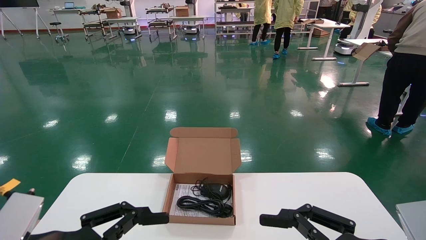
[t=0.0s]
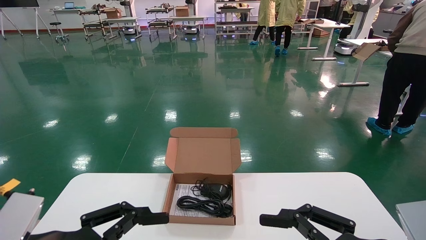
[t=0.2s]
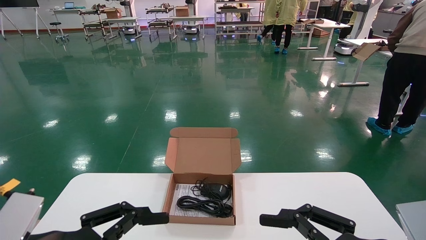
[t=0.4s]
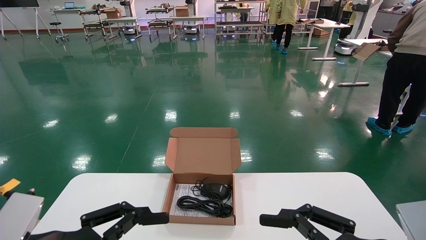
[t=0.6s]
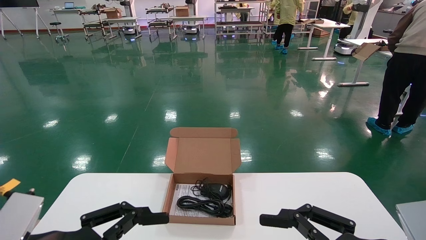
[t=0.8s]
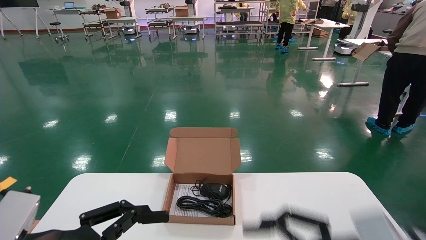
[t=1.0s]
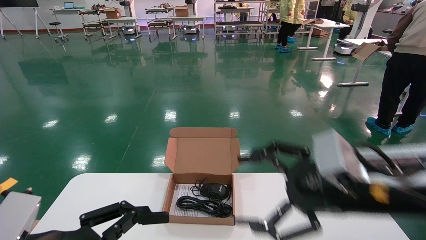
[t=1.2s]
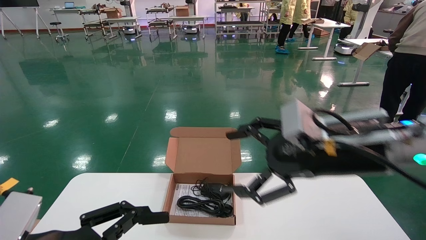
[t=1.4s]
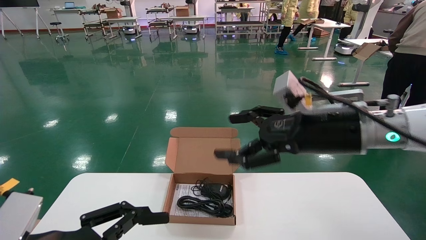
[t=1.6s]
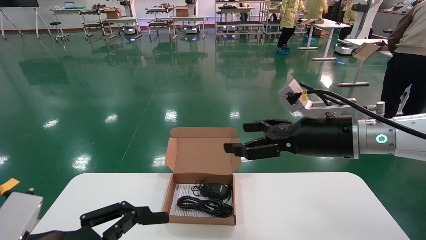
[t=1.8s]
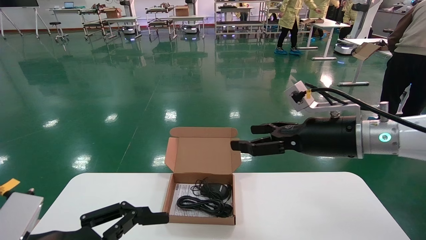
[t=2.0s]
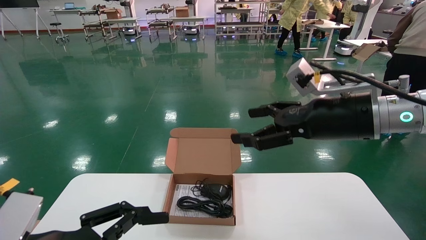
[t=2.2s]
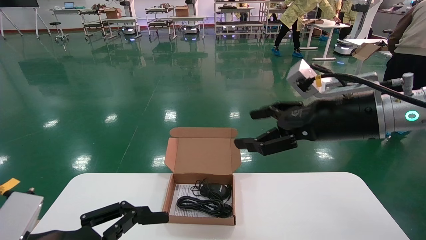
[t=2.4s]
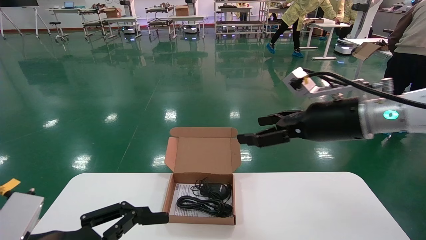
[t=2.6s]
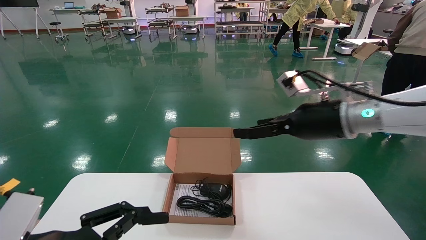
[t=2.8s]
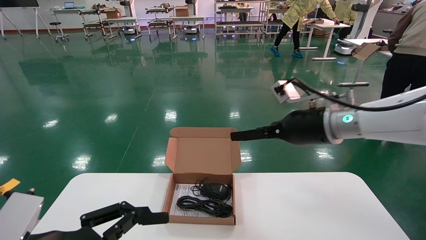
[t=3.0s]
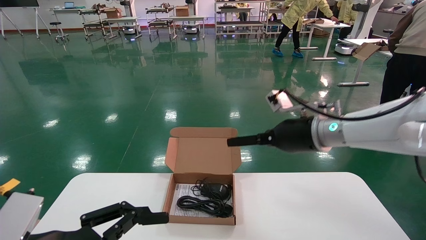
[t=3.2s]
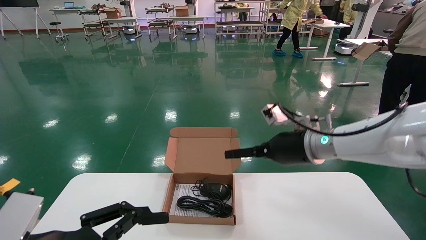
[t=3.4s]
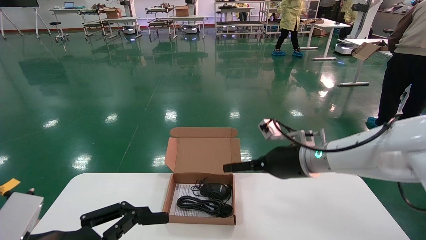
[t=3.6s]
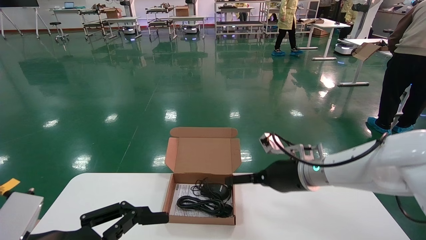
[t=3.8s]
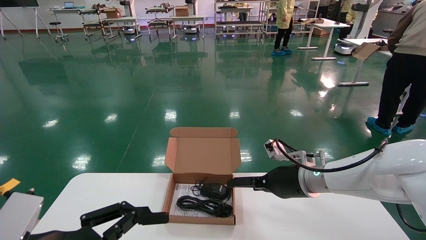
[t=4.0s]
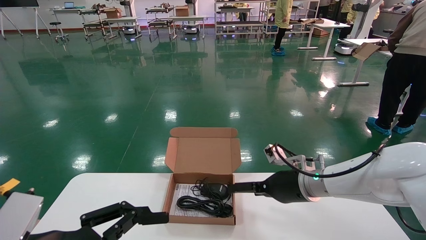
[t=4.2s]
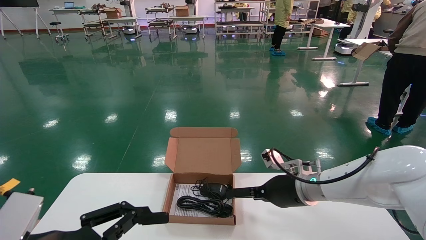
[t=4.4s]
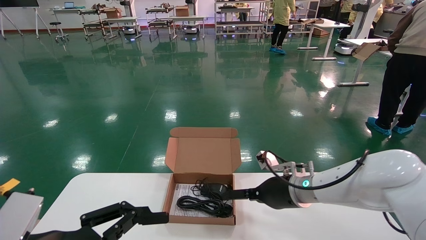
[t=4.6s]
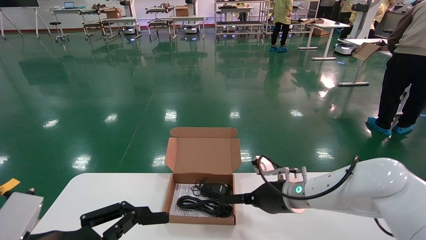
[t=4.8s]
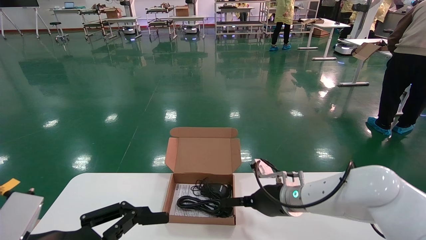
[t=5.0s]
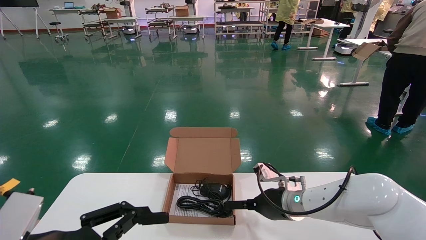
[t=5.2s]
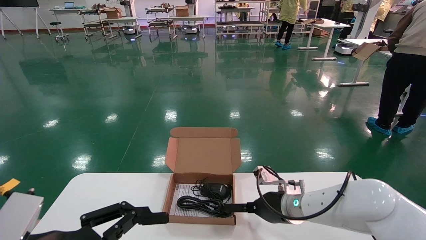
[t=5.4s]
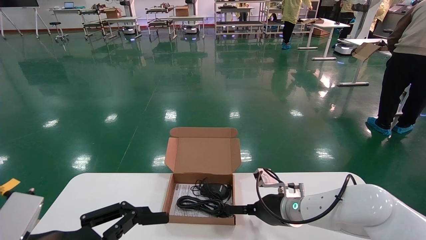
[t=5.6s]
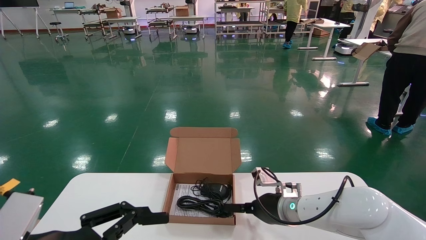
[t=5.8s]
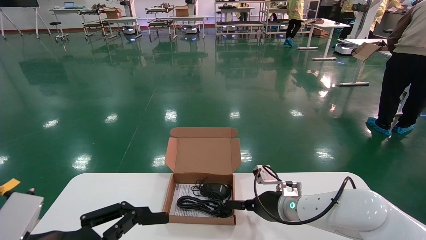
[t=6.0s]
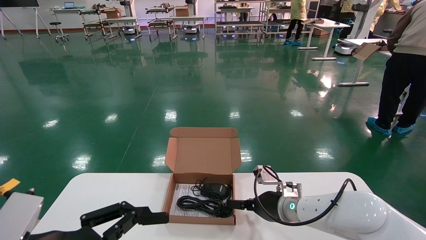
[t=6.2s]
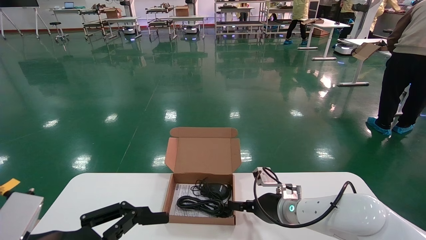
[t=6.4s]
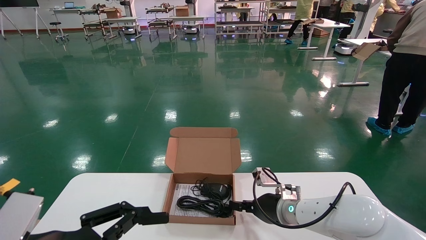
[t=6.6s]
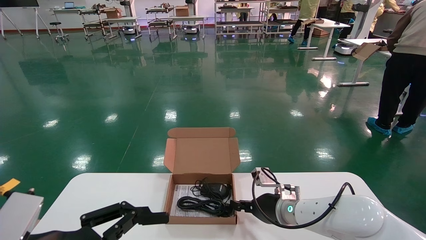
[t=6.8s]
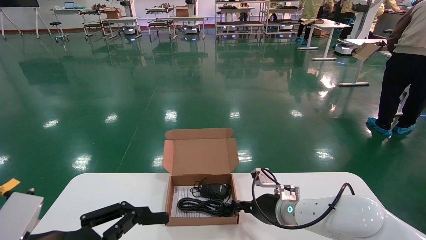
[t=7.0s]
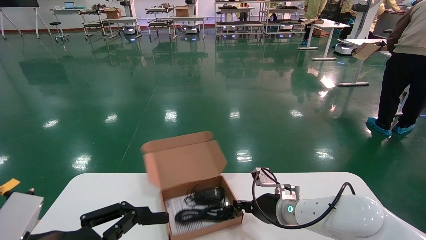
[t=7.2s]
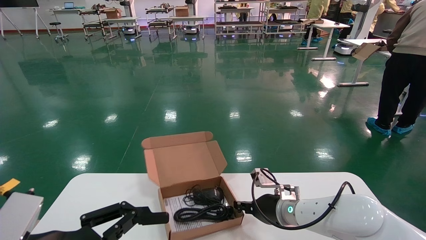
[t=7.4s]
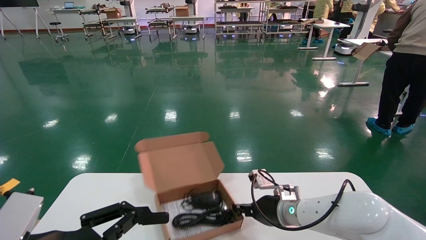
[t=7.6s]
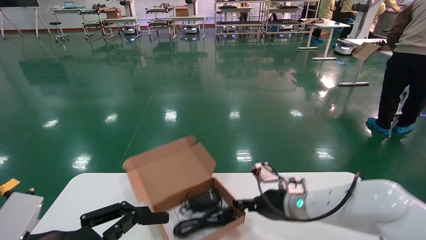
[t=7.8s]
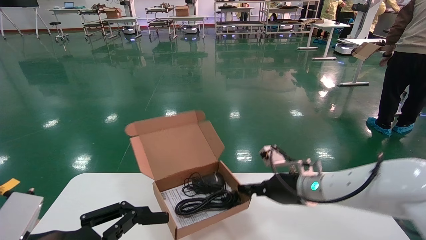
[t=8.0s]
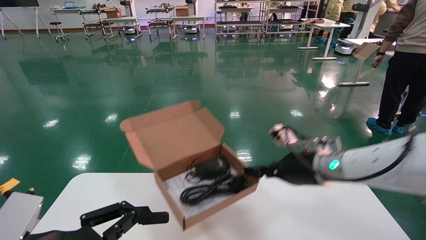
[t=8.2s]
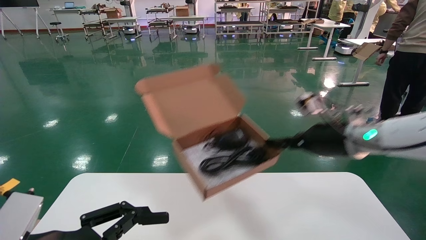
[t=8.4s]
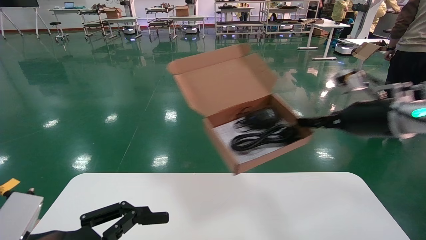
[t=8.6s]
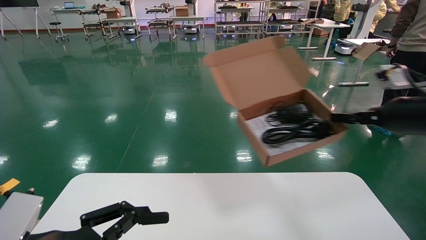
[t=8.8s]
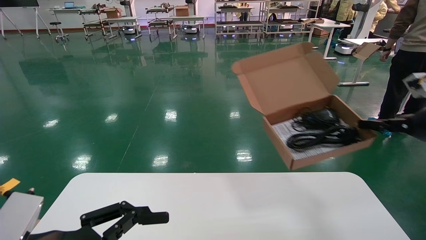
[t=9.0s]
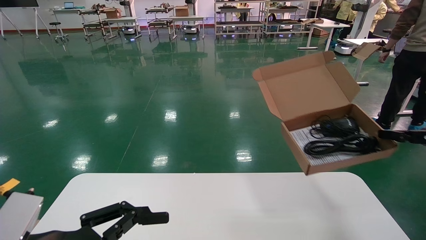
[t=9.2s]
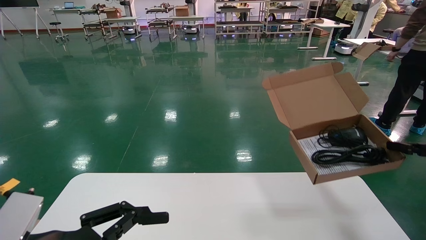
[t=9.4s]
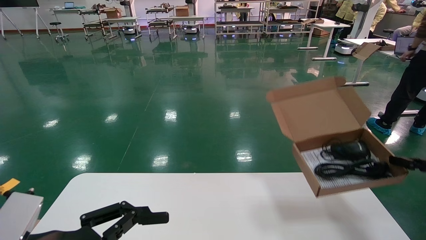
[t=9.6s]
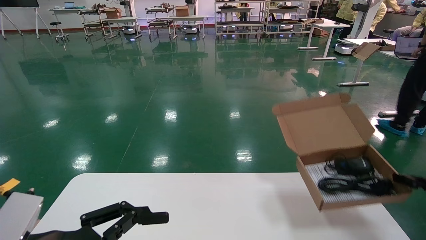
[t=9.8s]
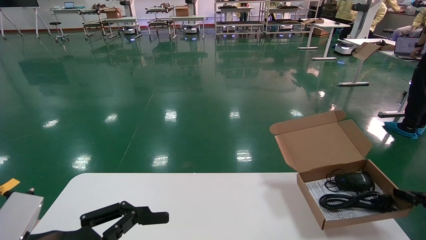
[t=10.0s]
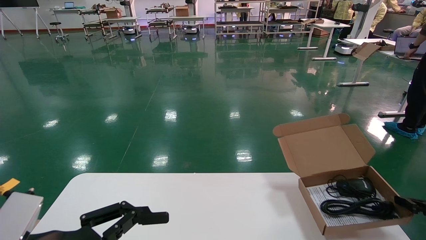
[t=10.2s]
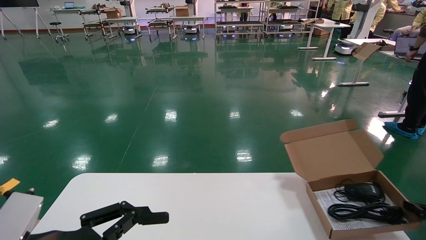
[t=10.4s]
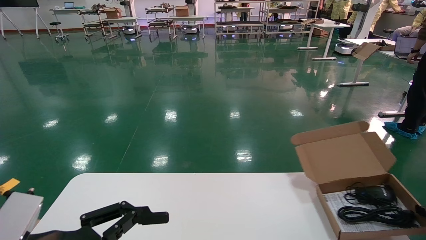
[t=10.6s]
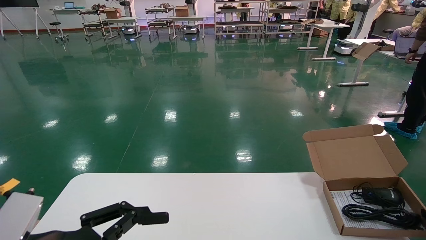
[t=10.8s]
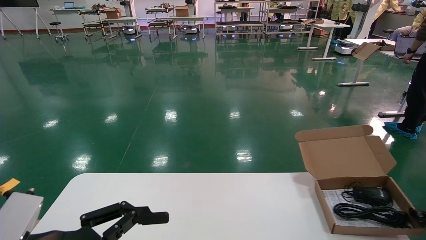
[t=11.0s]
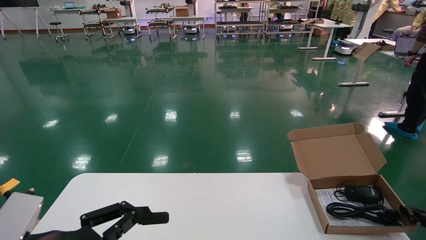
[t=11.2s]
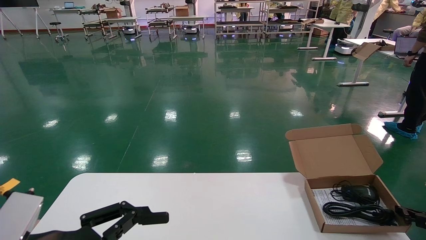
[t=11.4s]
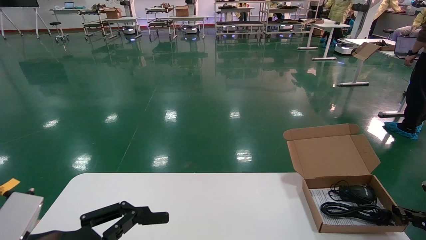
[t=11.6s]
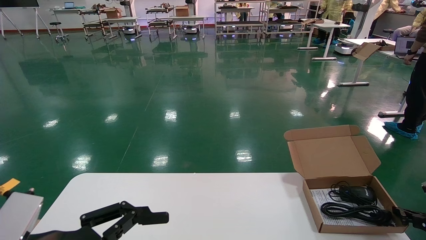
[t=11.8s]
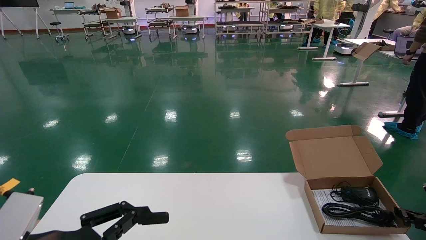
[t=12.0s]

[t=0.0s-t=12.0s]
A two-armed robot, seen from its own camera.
Task of the whole recording: move the position of the storage box with accessories on the table.
Step, t=1.2s to t=7.4s: Grab and pick up the open mouse box from the accessory packaging area.
t=0.0s to t=1.6s: The right gripper travels forward and upward by some 20 cm.
t=1.6s to t=3.0s: The right gripper travels forward by approximately 10 cm.
t=3.0s to t=4.4s: The right gripper shifts roughly 15 cm downward.
t=4.4s to t=6.0s: The right gripper moves downward, about 5 cm.
t=6.0s to t=7.6s: The right gripper closes its fingers.
t=7.6s to t=9.0s: The right gripper heads to the right and upward, covering some 35 cm.
t=9.0s to t=10.4s: The right gripper travels downward and to the right by approximately 20 cm.
t=10.4s to t=12.0s: There are only small adjustments of the grippers.

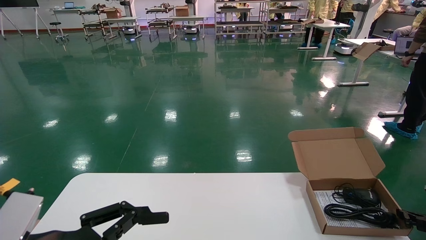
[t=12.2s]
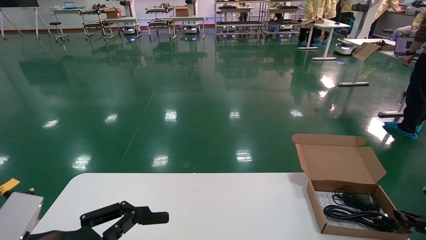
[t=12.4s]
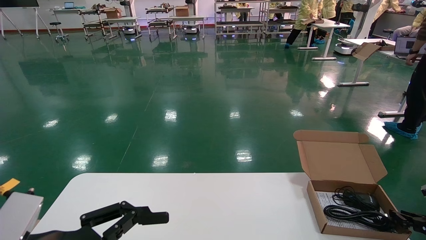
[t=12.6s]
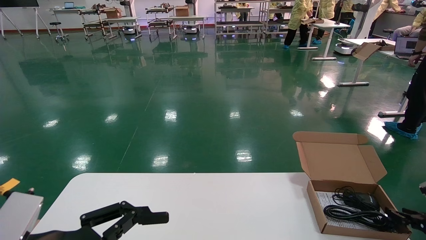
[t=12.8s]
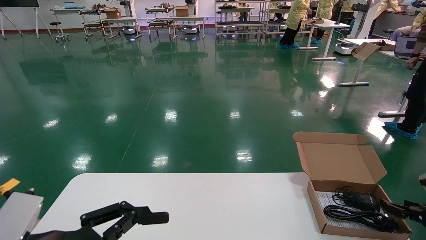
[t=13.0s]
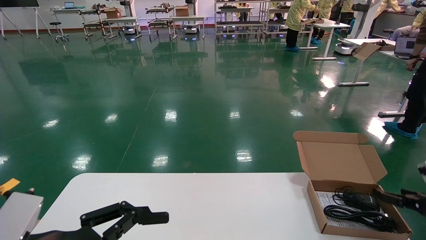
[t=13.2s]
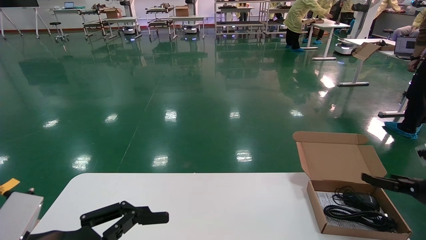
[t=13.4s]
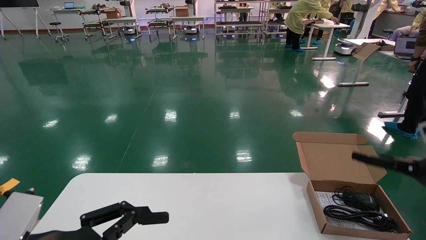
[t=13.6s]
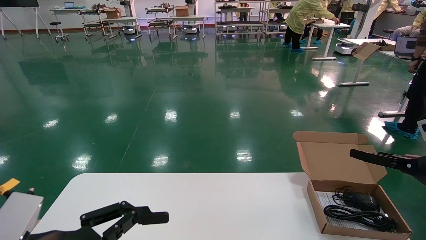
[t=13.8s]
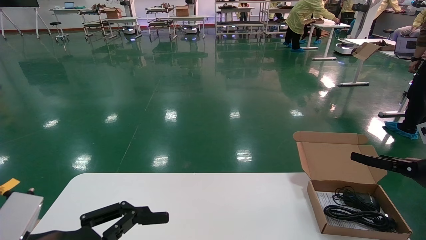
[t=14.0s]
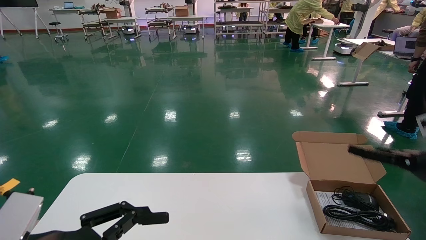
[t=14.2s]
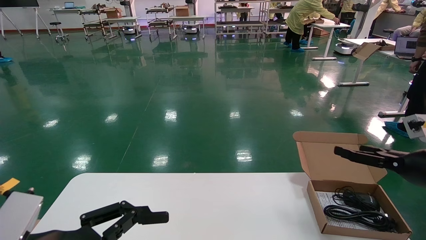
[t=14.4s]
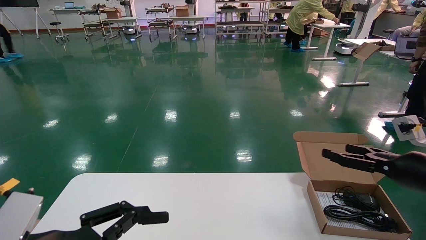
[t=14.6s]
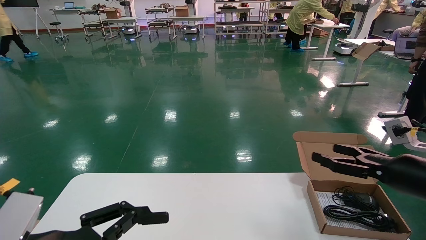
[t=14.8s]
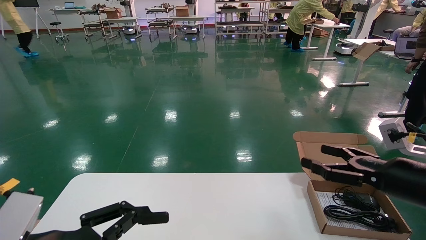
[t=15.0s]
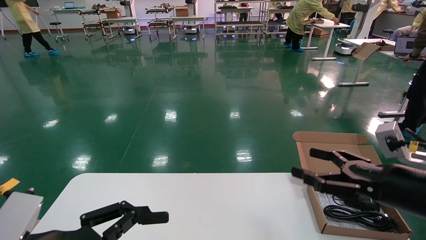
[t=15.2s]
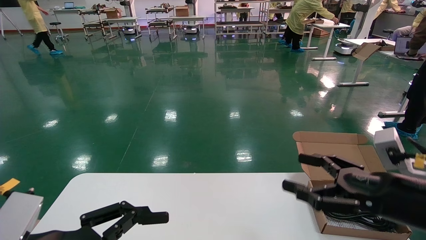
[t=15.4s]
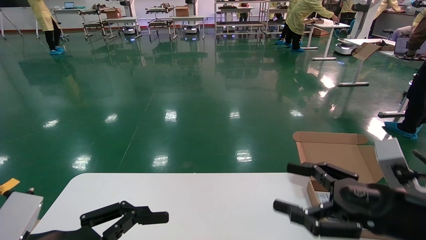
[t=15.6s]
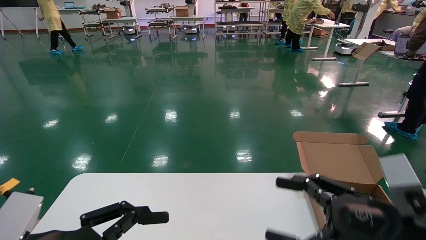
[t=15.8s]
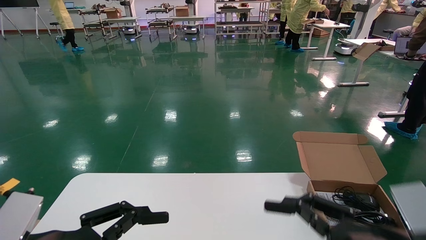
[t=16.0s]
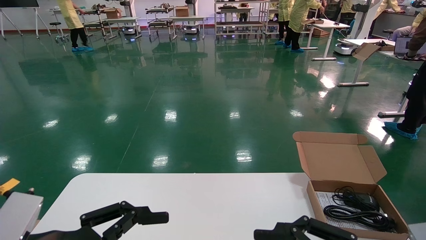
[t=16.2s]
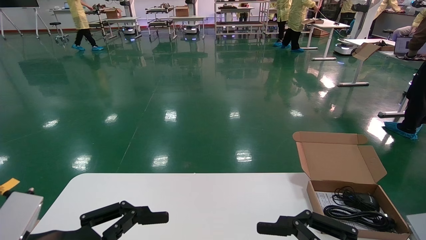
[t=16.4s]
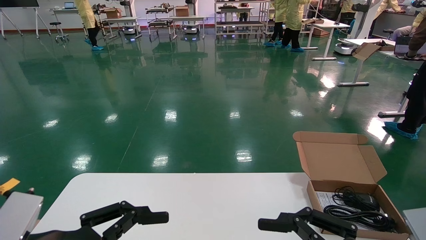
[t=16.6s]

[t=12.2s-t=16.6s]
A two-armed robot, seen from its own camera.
Task of the whole recording: move the position of the storage box with accessories on the table.
t=12.2s to t=13.6s: The right gripper goes some 10 cm upward, and opens up.
t=13.6s to t=15.2s: The right gripper is displaced to the left and backward by roughly 15 cm.
t=15.2s to t=16.6s: The right gripper shifts about 15 cm backward and to the left.
